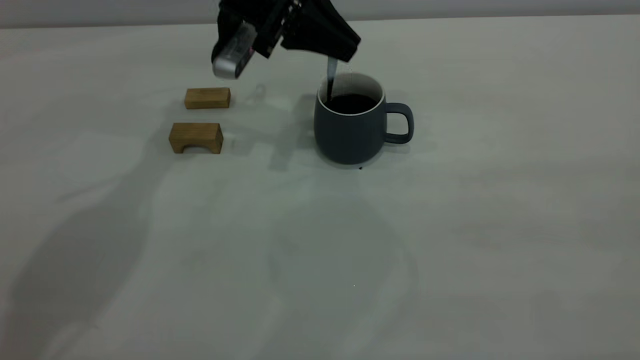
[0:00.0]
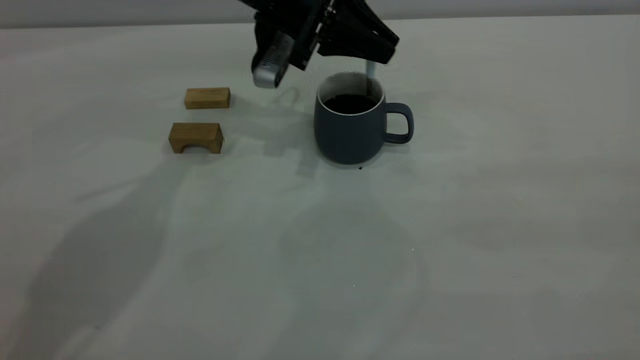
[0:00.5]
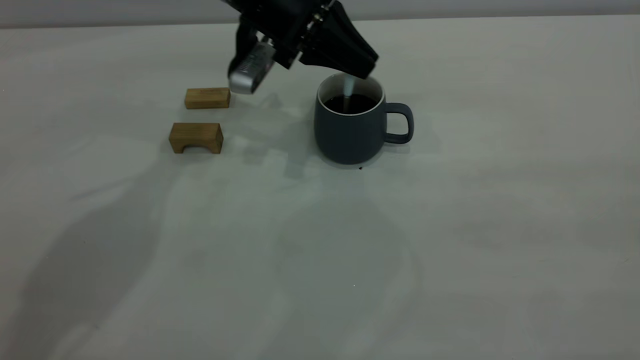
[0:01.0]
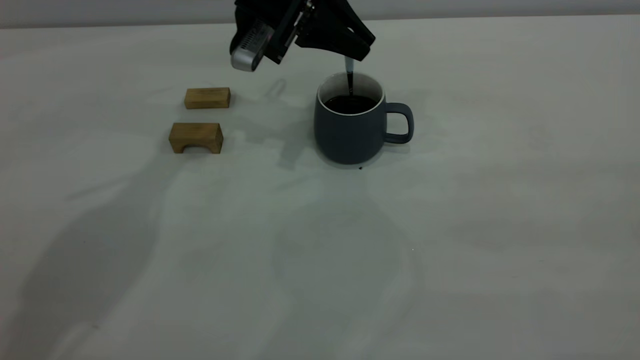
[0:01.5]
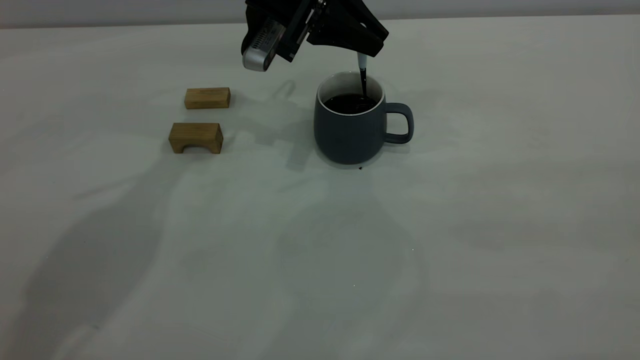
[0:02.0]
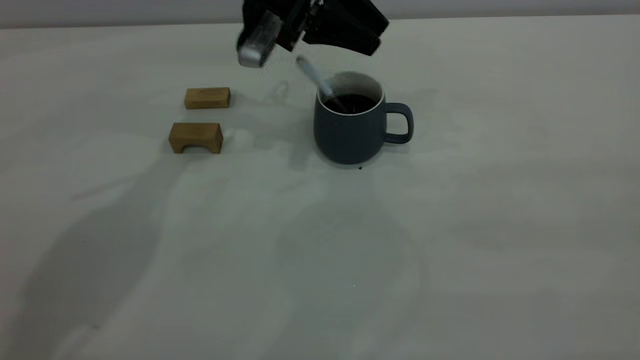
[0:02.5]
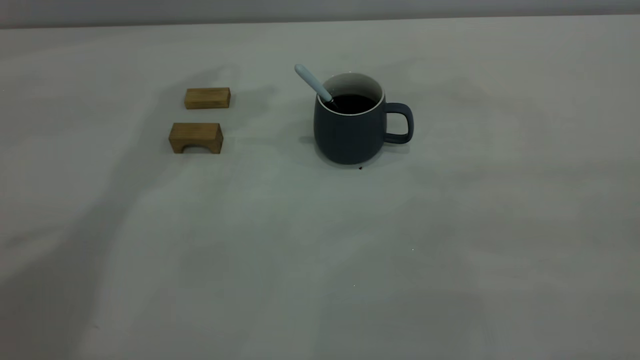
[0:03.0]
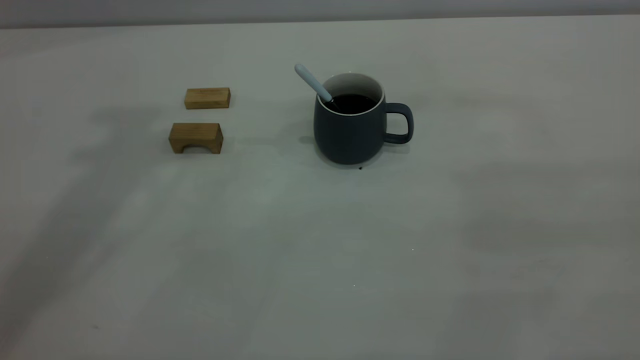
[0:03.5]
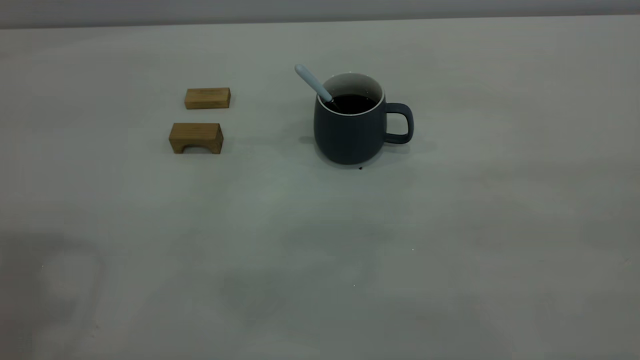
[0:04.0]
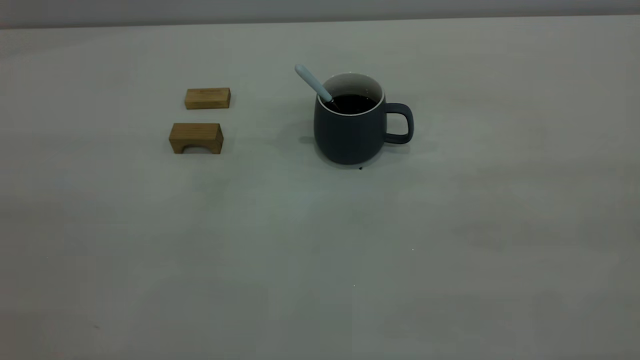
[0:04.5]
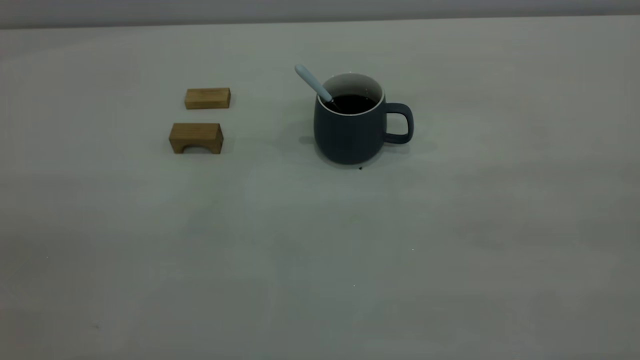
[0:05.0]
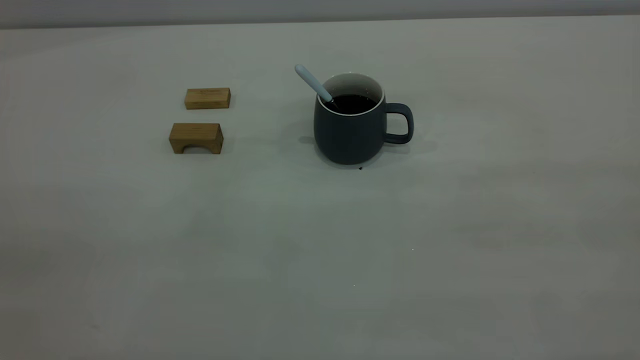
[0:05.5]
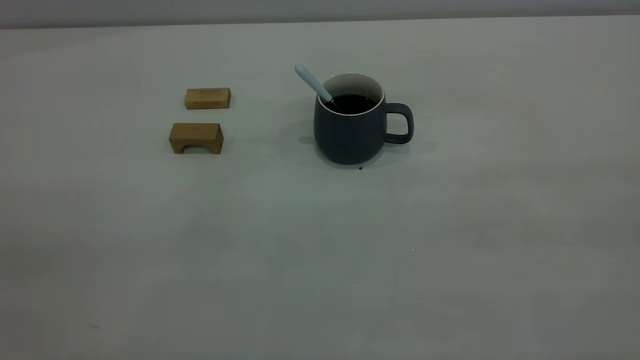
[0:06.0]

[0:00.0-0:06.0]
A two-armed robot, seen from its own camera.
Step, 0:00.0 to 0:02.5: Stir the coffee in the cup.
0:00.0 to 0:02.0: The grippers stay close to where they were, moving slightly.
0:02.0 to 0:04.0: The left gripper is displaced backward, upward and to the left by some 40 cm, and opens up.
